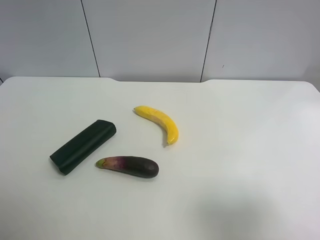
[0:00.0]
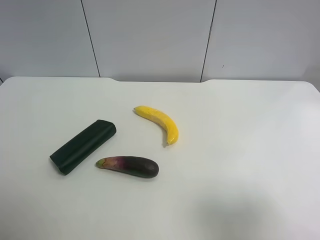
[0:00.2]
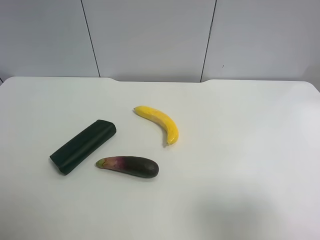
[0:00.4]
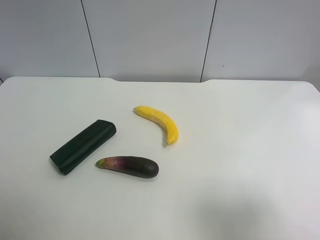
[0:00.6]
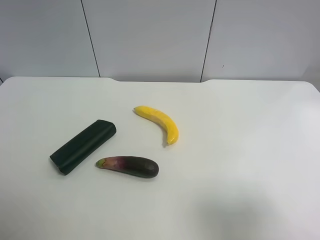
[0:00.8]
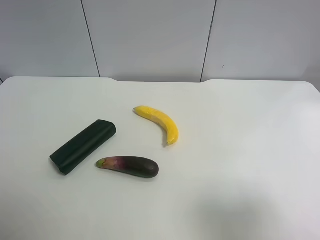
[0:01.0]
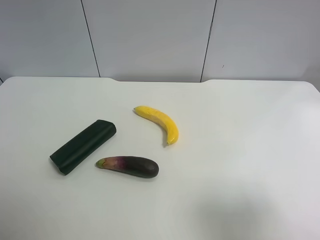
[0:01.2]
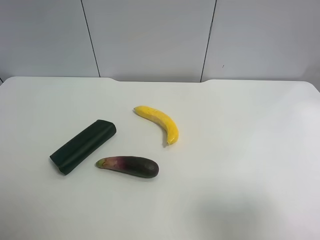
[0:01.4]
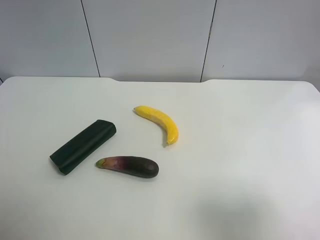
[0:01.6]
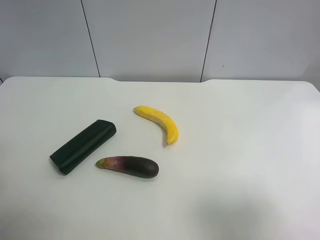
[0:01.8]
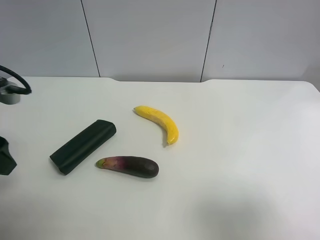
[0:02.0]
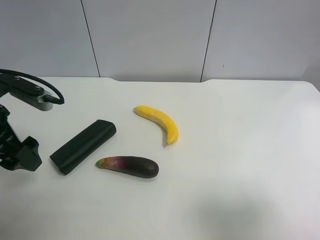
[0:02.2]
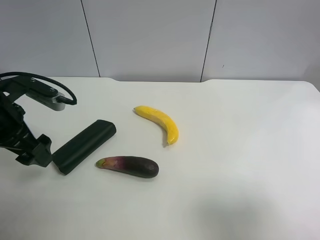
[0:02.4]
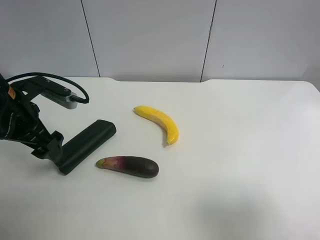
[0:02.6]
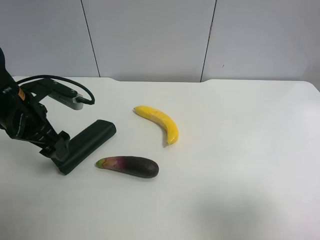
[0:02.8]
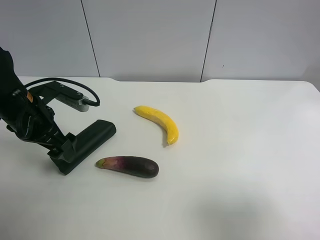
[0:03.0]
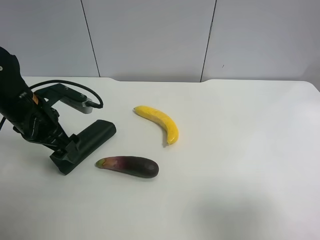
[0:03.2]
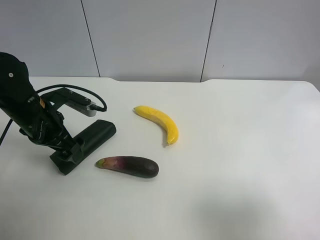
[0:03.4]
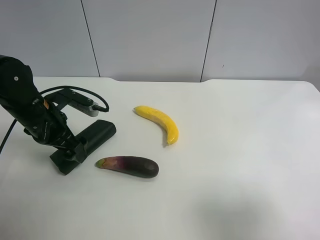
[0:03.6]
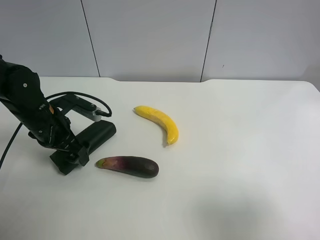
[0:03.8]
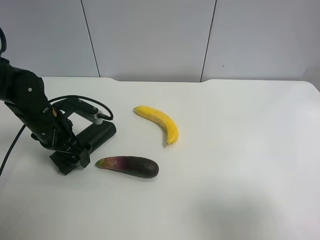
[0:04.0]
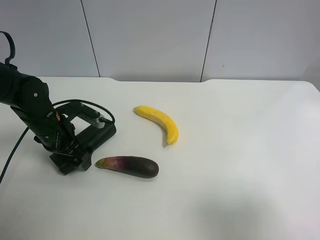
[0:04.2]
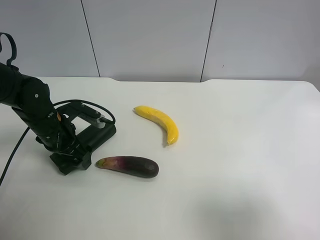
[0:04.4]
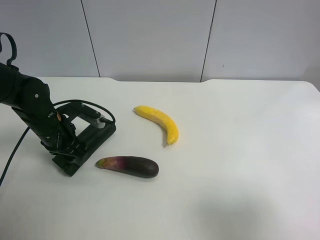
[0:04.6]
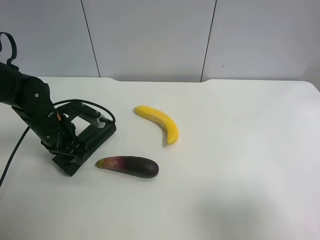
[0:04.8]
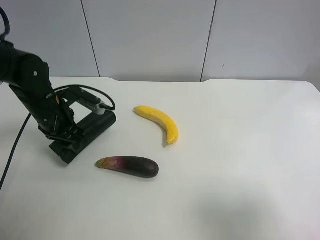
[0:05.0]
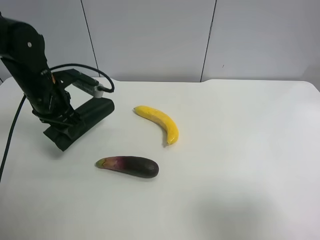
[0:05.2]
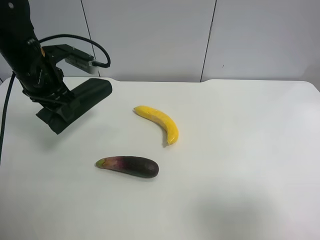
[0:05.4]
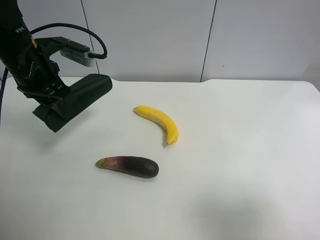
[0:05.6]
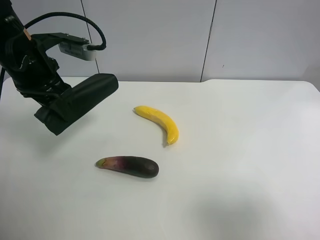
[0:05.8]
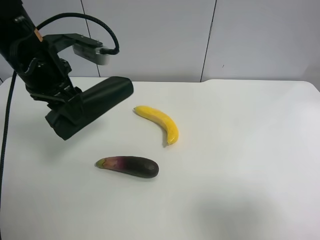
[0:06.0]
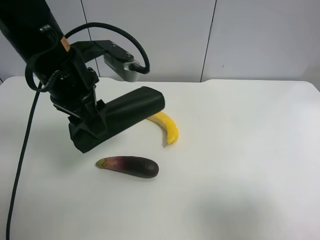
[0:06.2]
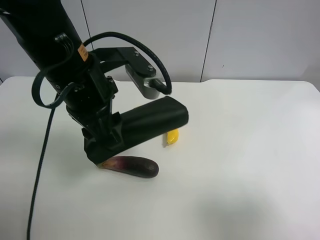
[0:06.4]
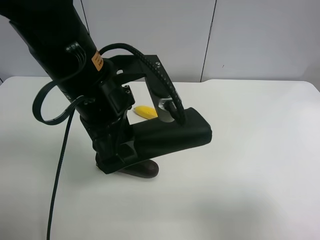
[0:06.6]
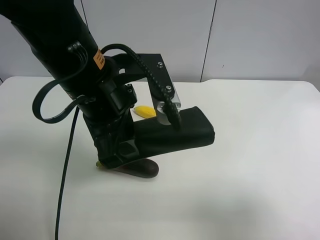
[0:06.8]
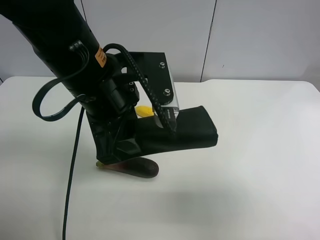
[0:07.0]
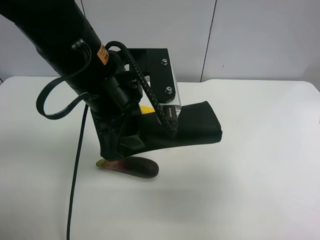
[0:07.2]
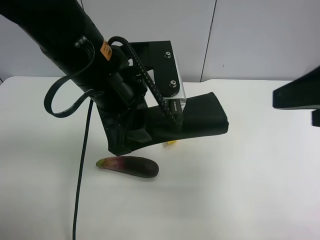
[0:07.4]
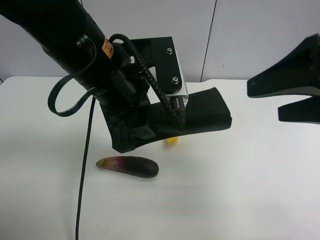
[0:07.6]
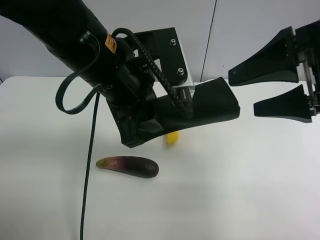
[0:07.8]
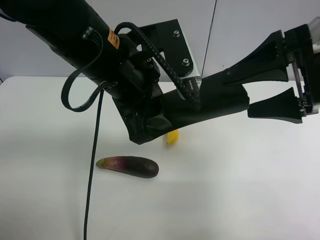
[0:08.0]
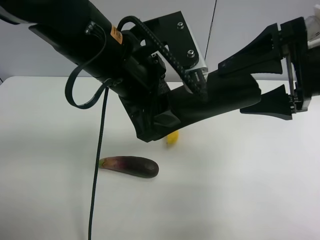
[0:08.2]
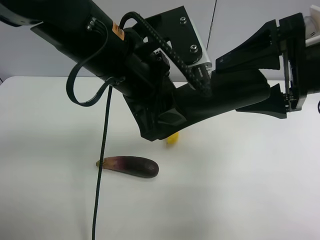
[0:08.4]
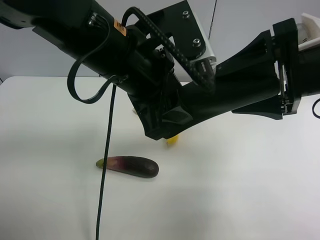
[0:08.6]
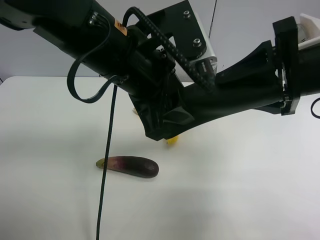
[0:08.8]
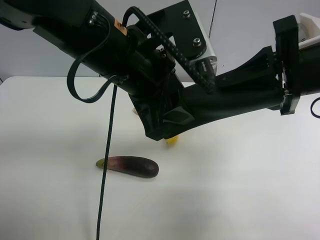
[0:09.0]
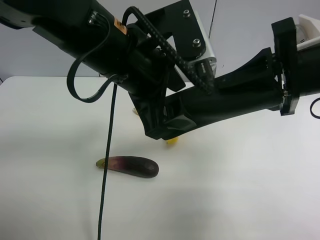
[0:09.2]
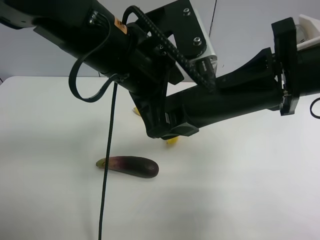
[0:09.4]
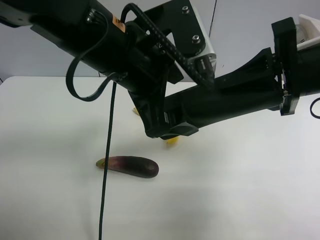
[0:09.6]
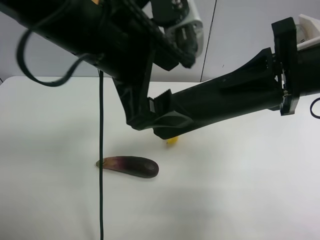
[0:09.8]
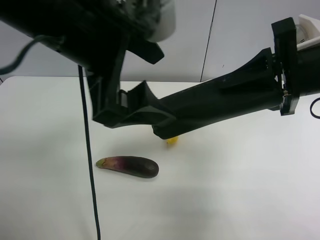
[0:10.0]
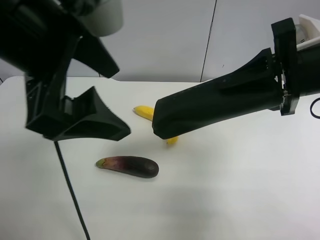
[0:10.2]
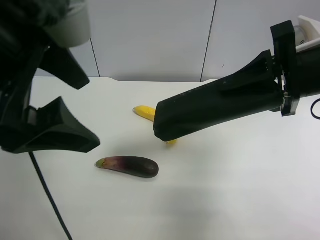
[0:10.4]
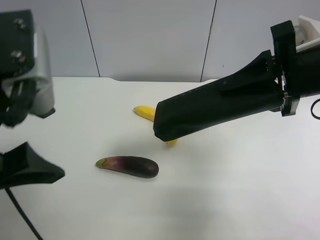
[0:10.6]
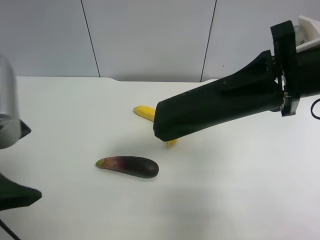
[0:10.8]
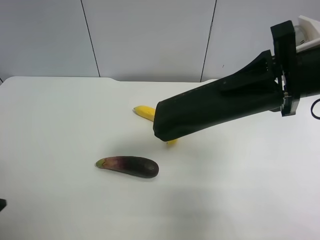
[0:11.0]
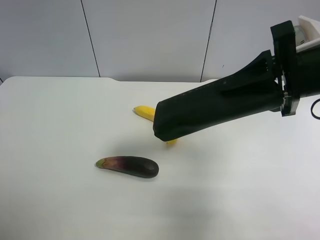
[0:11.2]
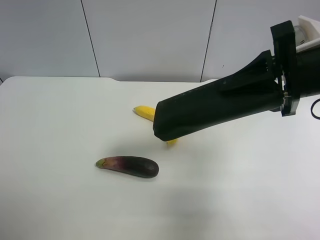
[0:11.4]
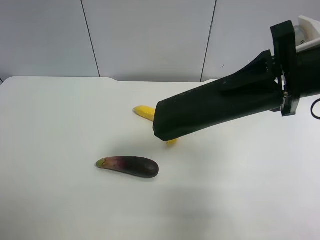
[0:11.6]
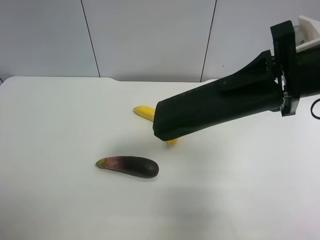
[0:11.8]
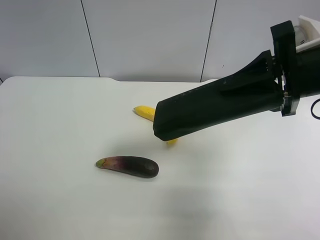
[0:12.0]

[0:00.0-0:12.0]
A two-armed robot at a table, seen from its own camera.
Task of the whole recording: use the left gripper to pick up the item and transfer it from the left gripper to the right gripper.
0:01.6 to 0:03.0: The left gripper shifts approximately 20 cm forward, downward and to the right.
0:03.0 to 0:04.4: The left gripper travels downward by about 5 cm.
0:04.4 to 0:06.0: The left gripper goes some 15 cm upward, and closes up.
0:06.0 to 0:07.6: The right gripper is displaced forward by some 15 cm; the left gripper goes approximately 15 cm to the right and backward.
0:07.6 to 0:09.0: The right gripper is displaced forward by some 5 cm, and closes its fingers.
0:09.0 to 0:10.4: The left gripper shifts approximately 15 cm to the left, backward and upward, and opens up.
0:10.4 to 0:12.0: The left gripper shifts some 25 cm to the left, backward and downward.

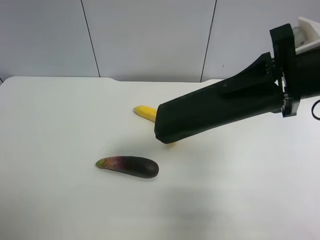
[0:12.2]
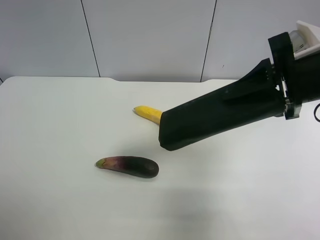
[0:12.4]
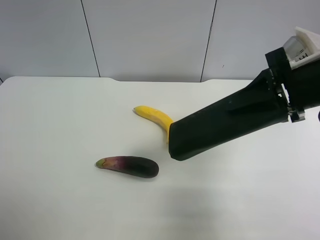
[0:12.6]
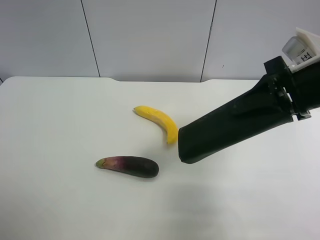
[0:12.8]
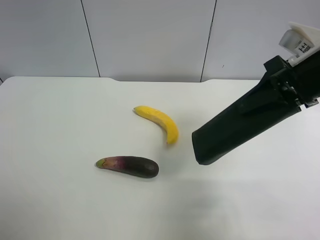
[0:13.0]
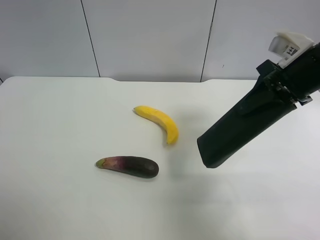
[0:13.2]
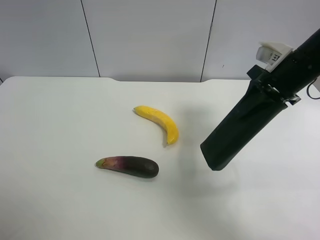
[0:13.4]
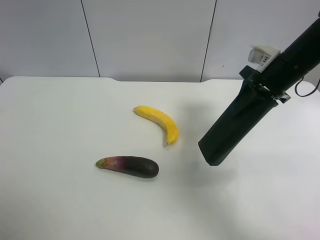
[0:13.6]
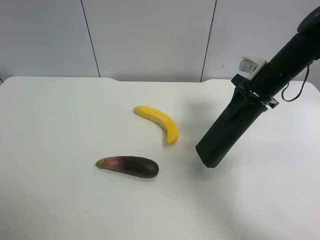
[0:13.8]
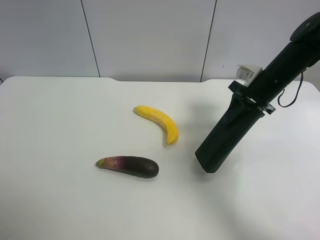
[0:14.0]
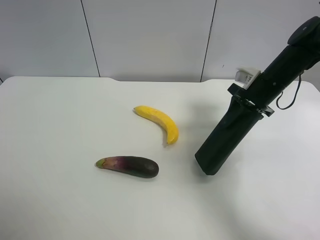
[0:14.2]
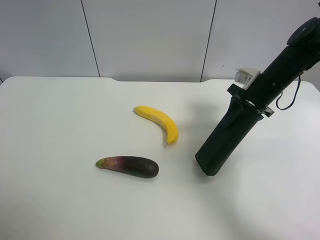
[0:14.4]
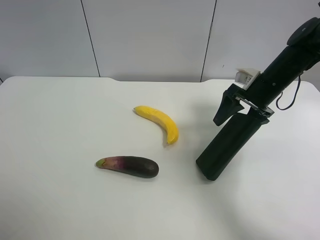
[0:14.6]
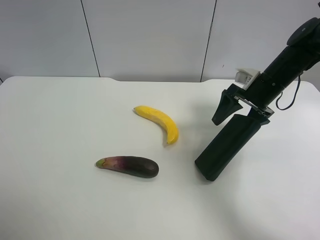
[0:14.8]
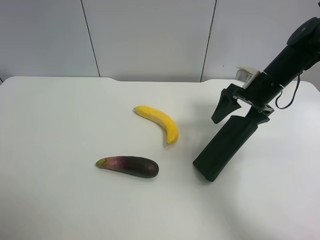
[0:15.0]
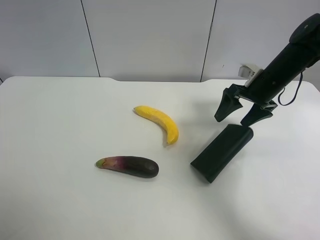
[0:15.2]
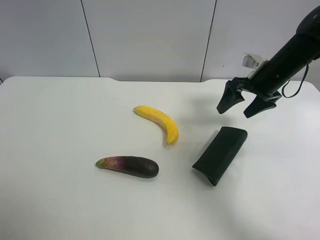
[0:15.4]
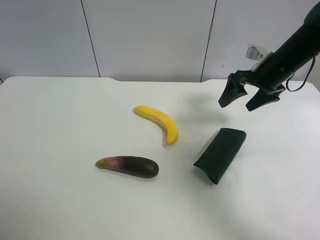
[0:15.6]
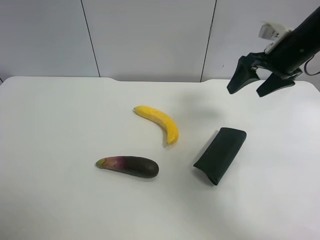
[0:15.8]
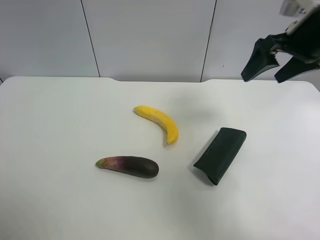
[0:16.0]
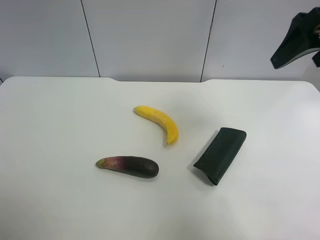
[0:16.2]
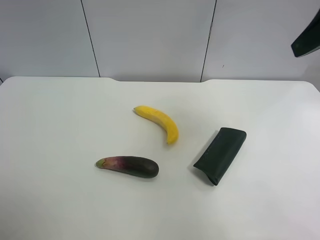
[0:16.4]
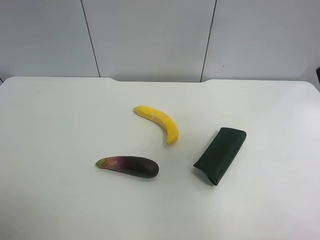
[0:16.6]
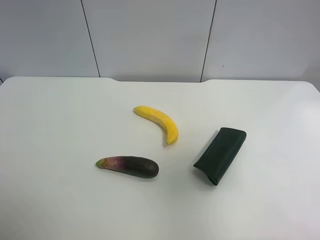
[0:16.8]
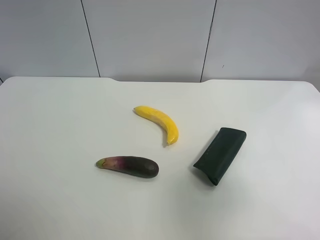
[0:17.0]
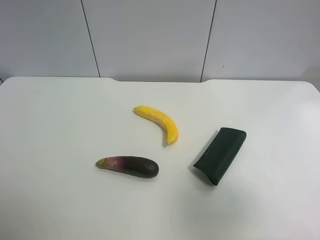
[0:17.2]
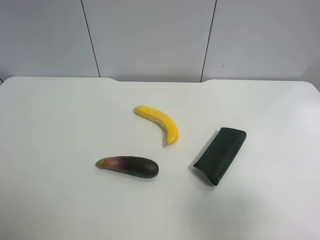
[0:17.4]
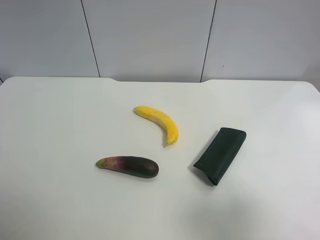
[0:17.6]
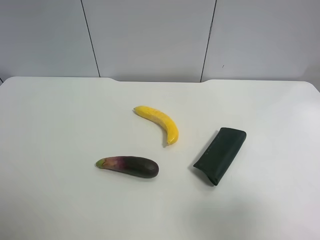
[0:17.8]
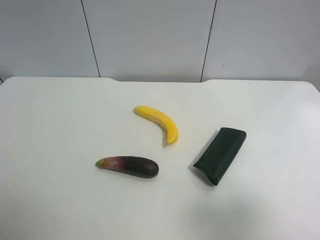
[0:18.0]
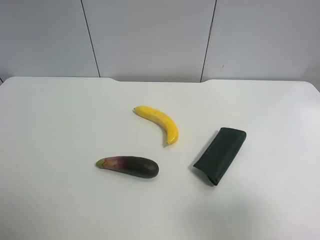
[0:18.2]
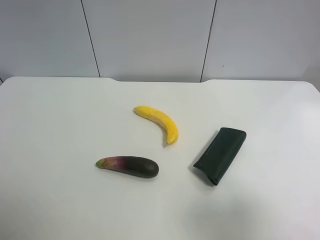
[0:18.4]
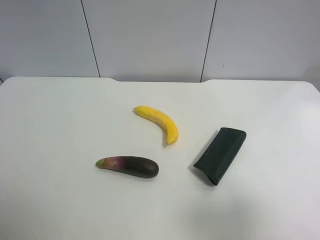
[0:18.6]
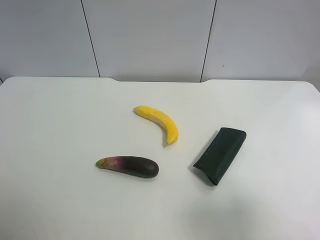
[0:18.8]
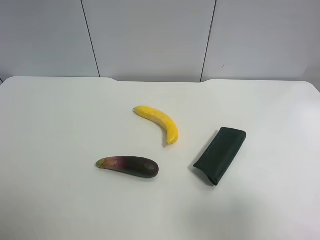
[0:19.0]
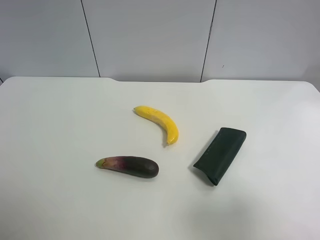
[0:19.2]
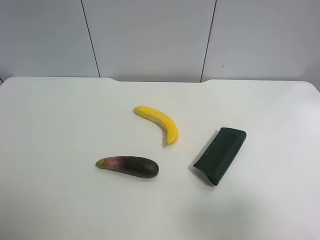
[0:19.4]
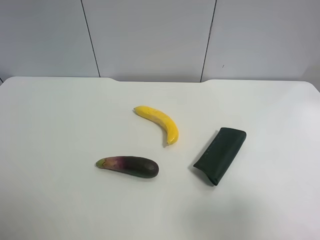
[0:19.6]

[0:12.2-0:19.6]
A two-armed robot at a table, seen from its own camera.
Task of the whole recording: use the left gripper to pick up the item and transfer it from the left gripper to the right gripper.
0:12.2 to 0:13.6: The right gripper shifts approximately 15 cm forward and downward.
0:13.6 to 0:15.2: The right gripper changes place by about 5 cm, and opens up.
0:15.2 to 0:16.6: The right gripper shifts roughly 30 cm backward and upward.
0:16.6 to 0:18.2: The right gripper is displaced backward and downward by approximately 15 cm.
0:18.2 to 0:19.6: The two grippers keep their place.
